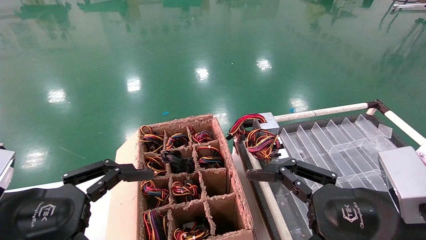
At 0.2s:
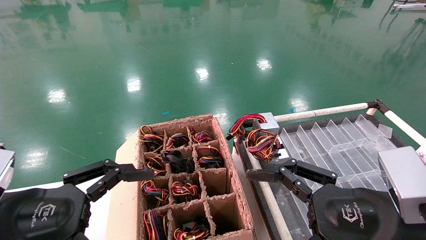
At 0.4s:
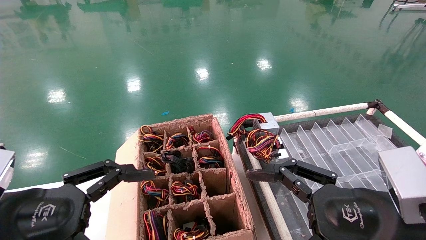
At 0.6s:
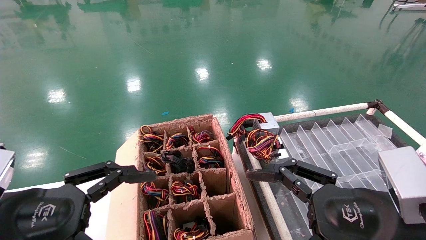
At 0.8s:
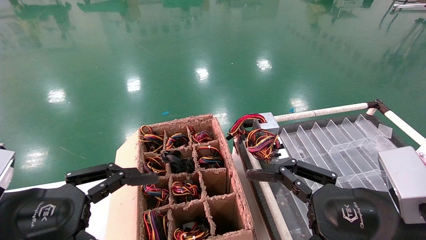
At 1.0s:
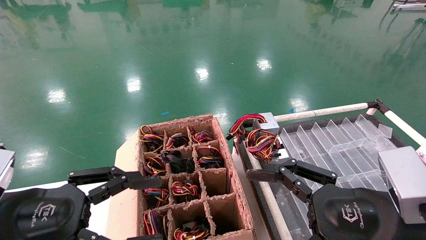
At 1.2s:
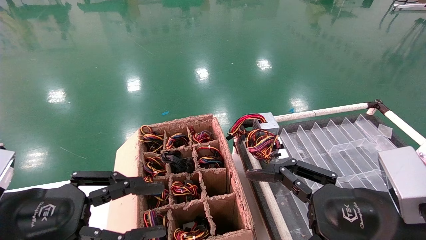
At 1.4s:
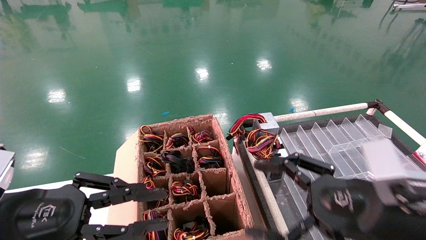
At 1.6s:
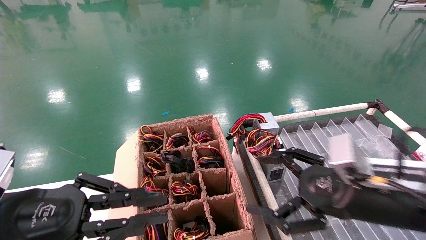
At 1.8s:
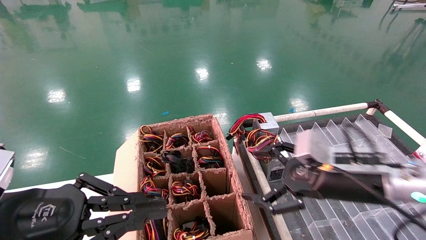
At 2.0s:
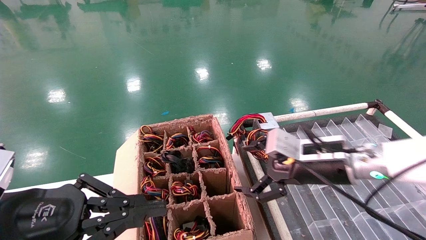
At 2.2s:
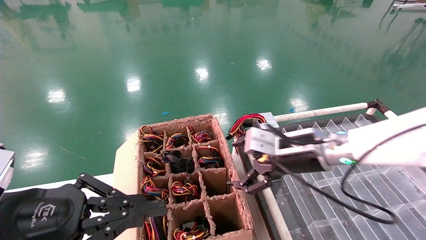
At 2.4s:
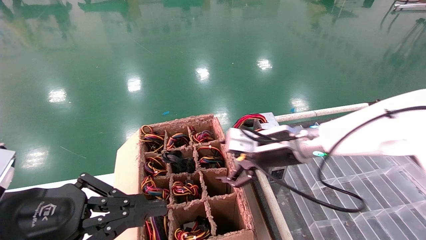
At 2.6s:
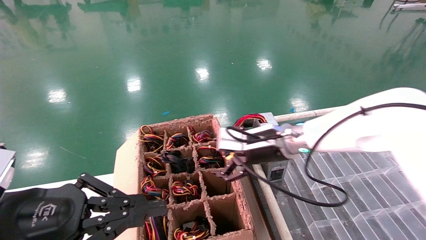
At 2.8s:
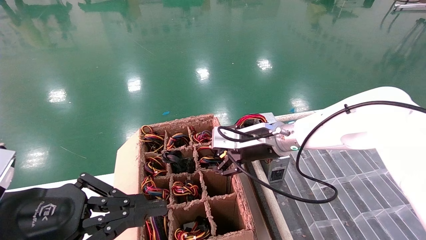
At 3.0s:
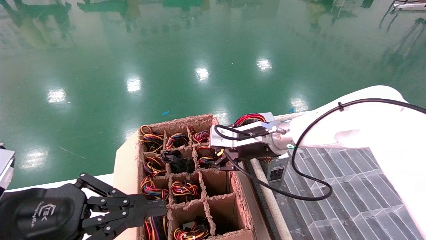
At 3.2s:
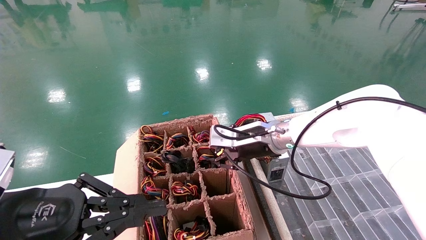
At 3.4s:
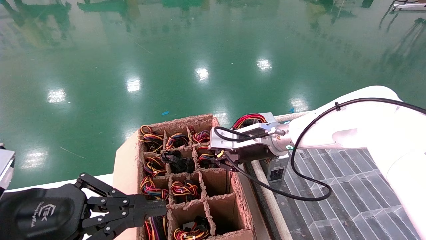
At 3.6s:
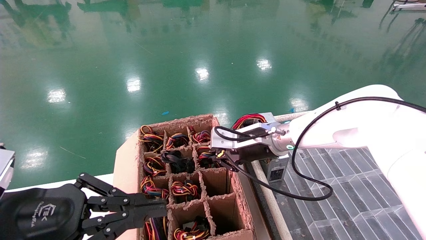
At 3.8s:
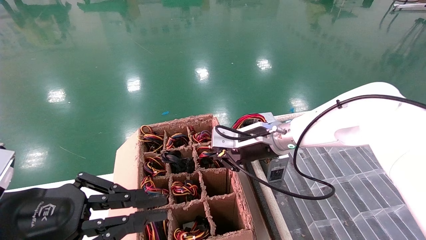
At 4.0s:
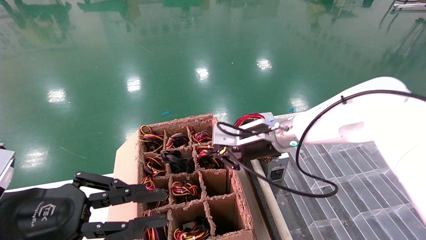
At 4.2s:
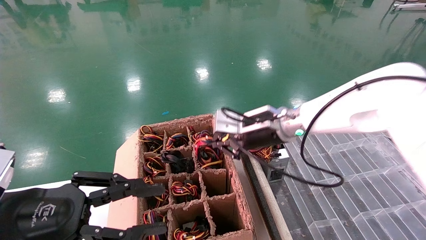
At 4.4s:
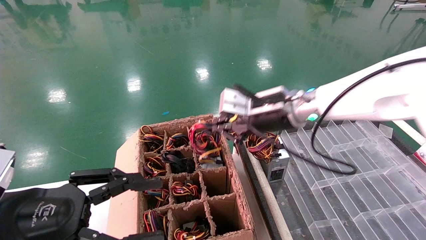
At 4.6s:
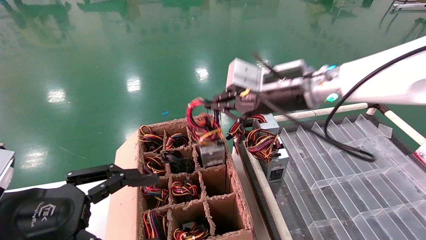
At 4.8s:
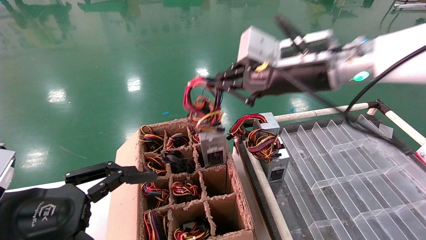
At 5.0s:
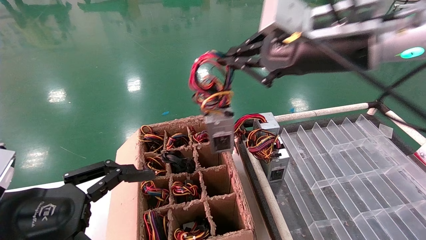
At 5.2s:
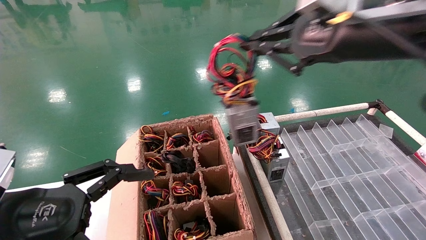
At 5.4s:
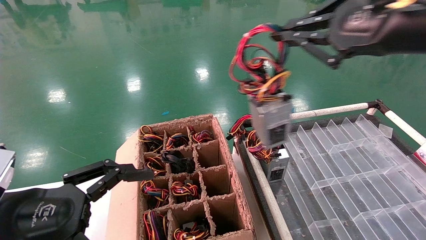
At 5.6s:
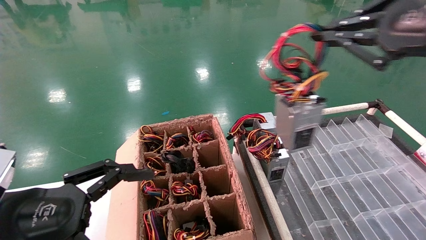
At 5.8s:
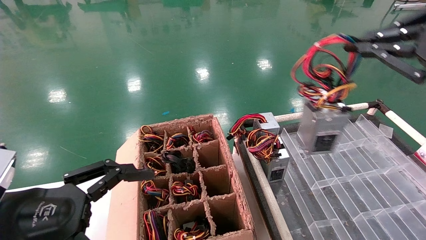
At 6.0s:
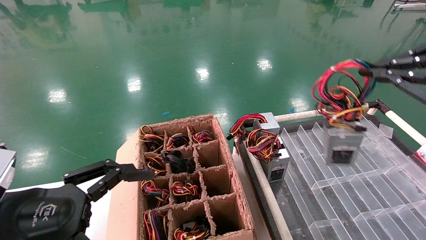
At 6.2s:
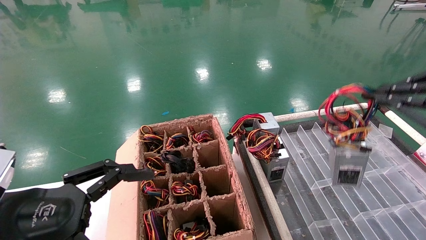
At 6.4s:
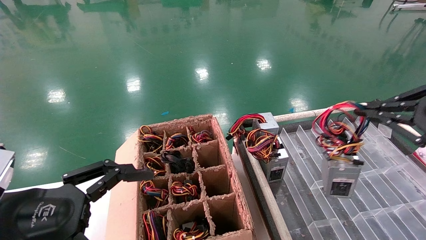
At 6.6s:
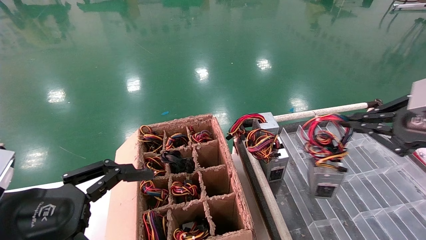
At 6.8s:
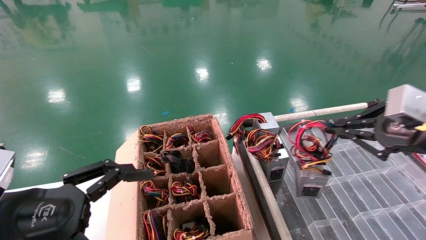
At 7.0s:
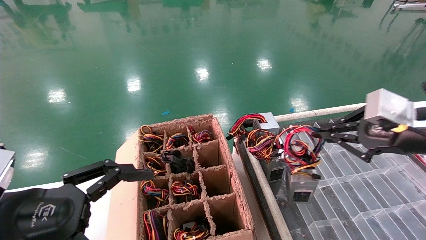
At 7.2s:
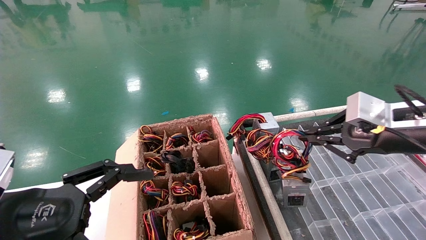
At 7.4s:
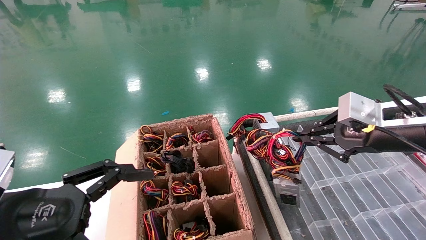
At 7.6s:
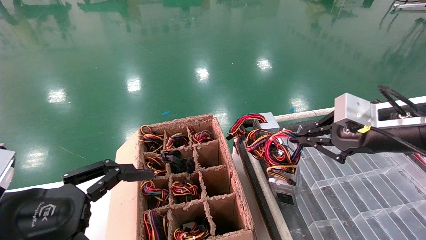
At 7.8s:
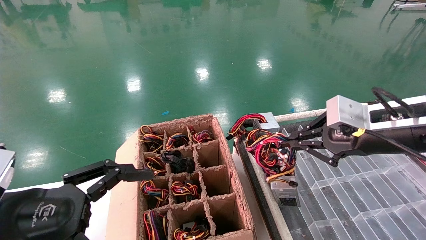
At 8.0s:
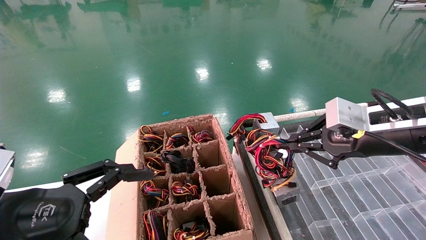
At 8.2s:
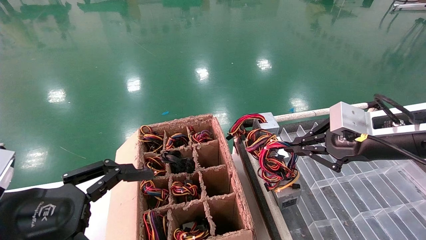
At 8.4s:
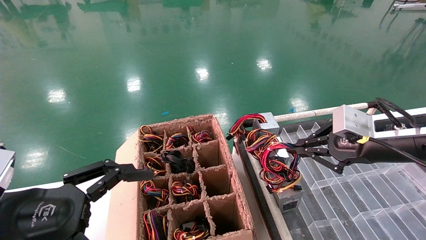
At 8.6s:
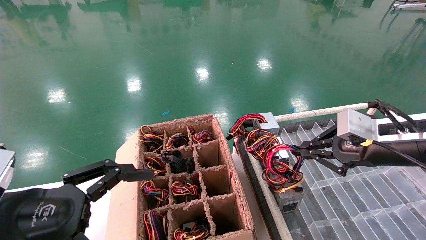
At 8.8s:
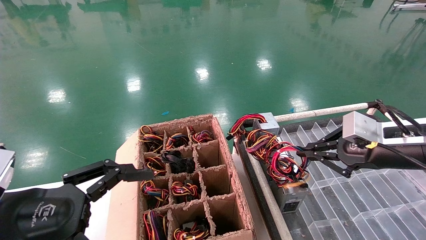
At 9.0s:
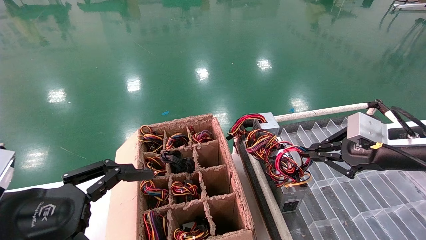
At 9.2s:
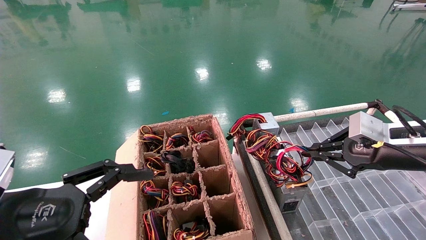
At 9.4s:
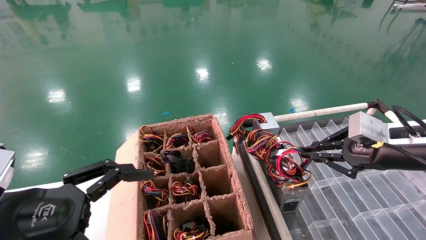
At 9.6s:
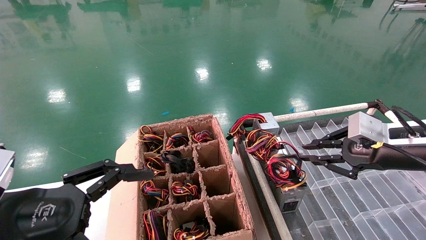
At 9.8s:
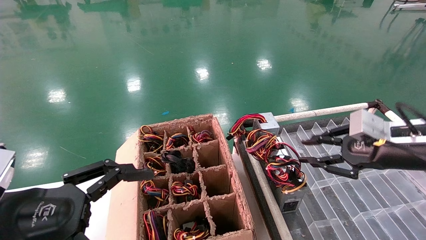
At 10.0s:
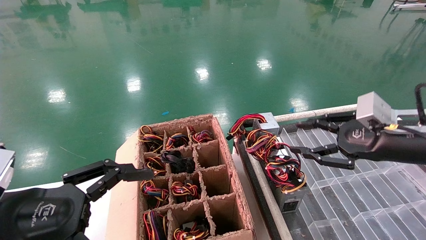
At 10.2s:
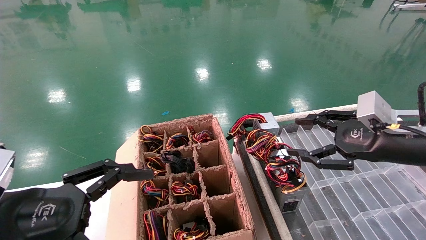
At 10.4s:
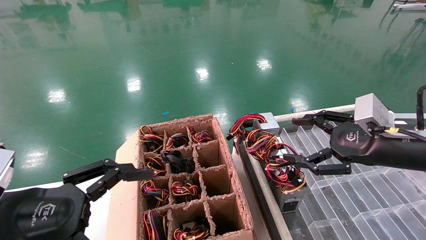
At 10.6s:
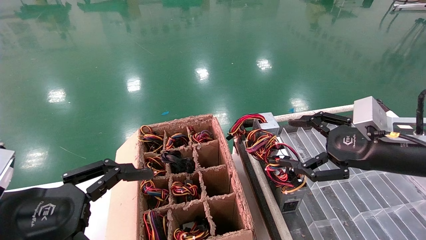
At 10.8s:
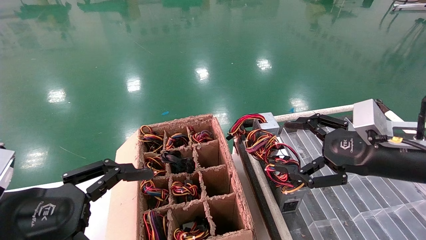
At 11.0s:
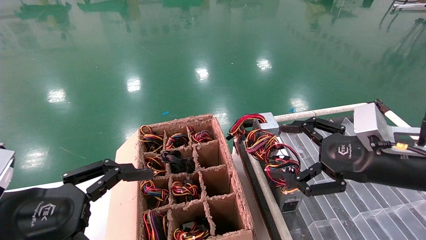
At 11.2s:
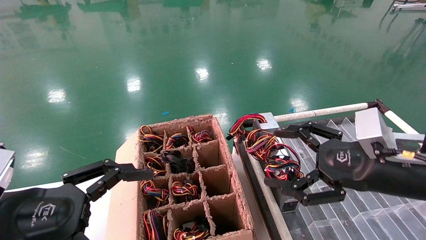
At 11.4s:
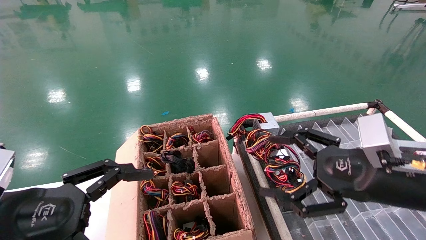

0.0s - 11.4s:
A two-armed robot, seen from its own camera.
Step, 1.2s - 3.8s: Grab and lift the power supply from the large box.
Step, 4.0s - 9.6s: Place the power supply on the operating table.
0.0s - 1.4s: The left gripper closes up.
1.4s - 2.8s: The right gripper travels forward and to the left by roughly 25 cm, while the left gripper closes its fingers.
2.8s - 4.2s: The right gripper closes.
4.2s - 5.6s: The right gripper goes approximately 30 cm backward, to the right and upward. The left gripper opens up.
5.6s - 7.2s: The right gripper shifts roughly 15 cm downward and forward.
7.2s - 8.6s: There are only small adjustments of the grippers.
8.6s - 10.0s: The right gripper opens up.
10.0s - 11.4s: The right gripper heads to the left and backward, covering some 10 cm, and opens.

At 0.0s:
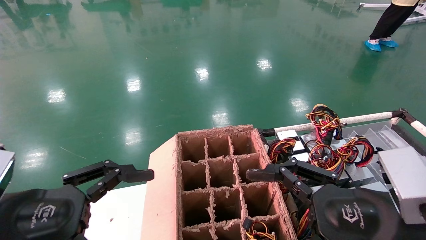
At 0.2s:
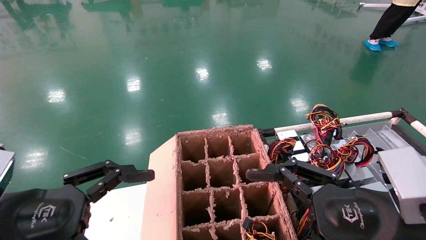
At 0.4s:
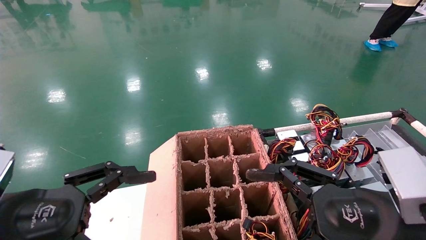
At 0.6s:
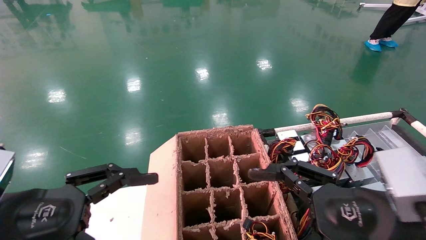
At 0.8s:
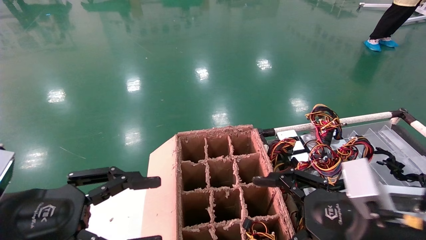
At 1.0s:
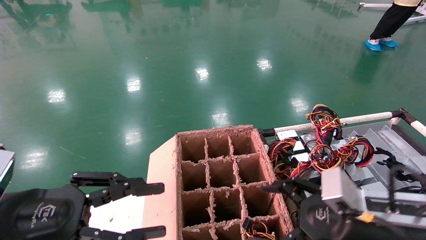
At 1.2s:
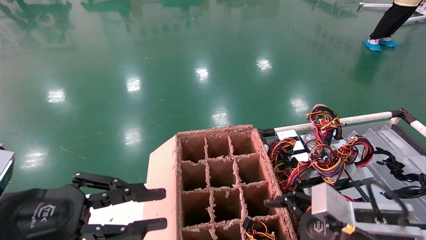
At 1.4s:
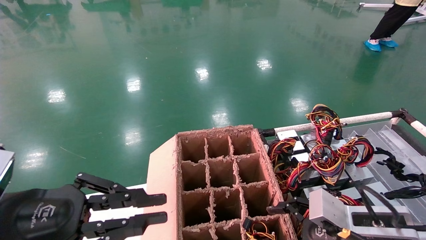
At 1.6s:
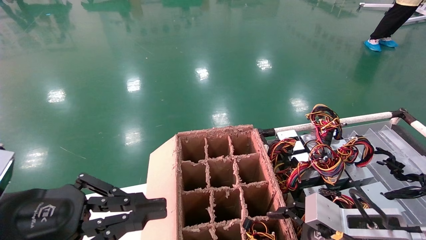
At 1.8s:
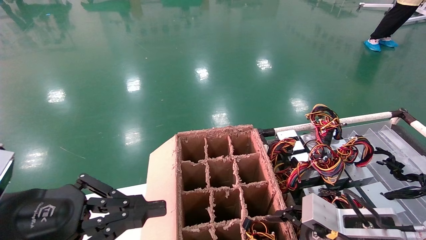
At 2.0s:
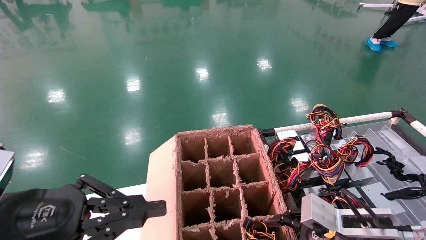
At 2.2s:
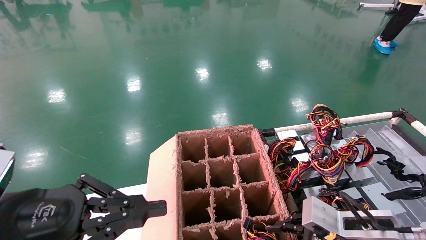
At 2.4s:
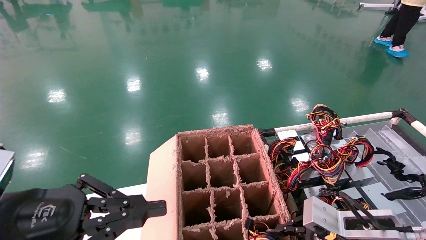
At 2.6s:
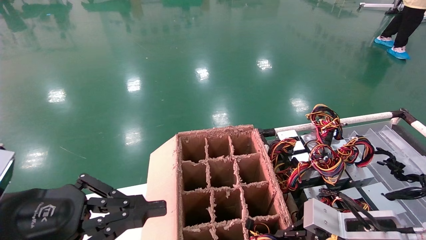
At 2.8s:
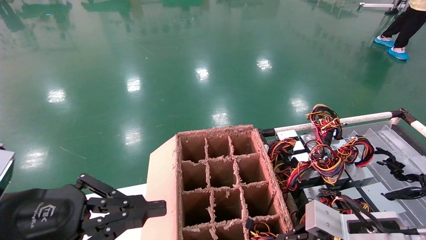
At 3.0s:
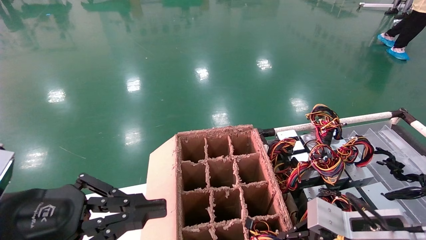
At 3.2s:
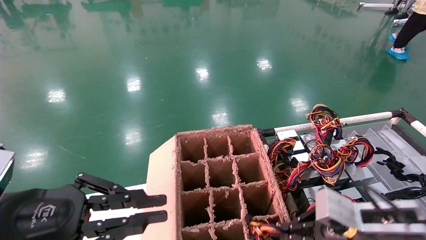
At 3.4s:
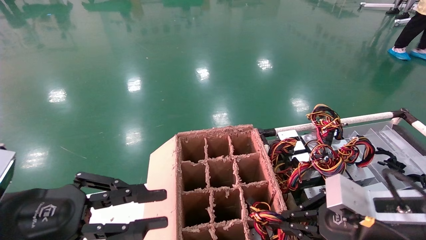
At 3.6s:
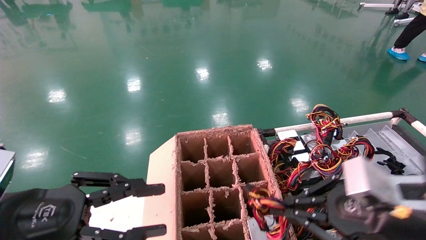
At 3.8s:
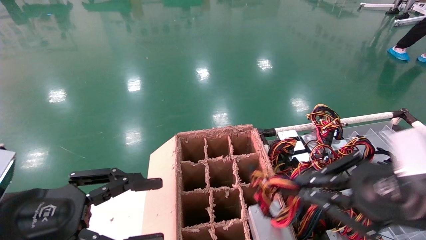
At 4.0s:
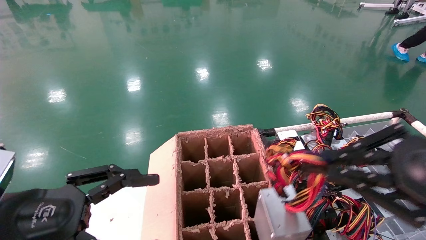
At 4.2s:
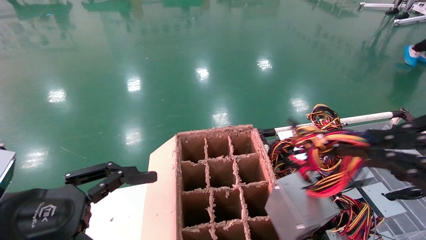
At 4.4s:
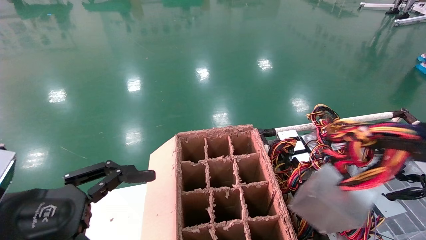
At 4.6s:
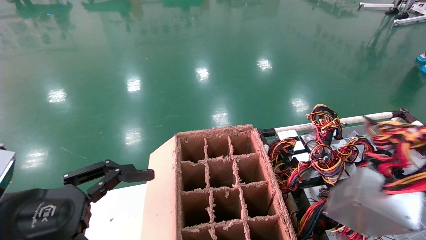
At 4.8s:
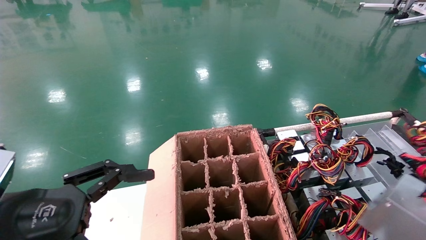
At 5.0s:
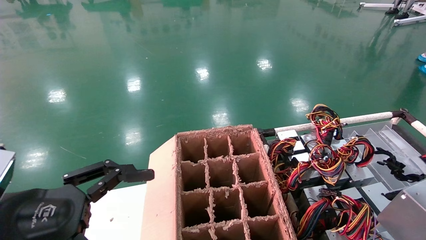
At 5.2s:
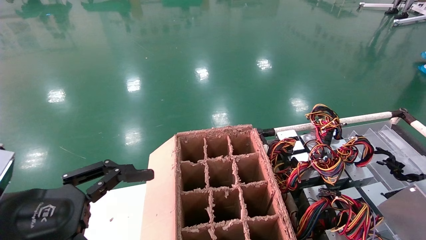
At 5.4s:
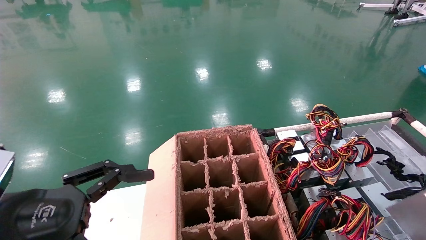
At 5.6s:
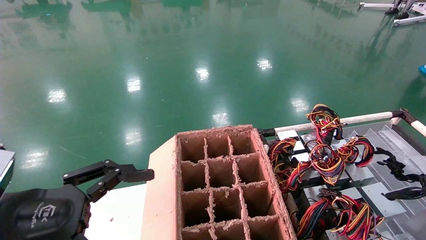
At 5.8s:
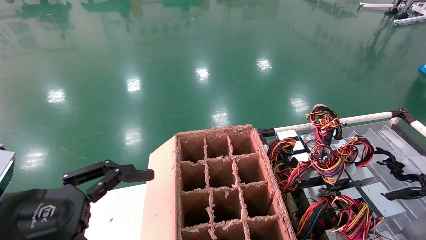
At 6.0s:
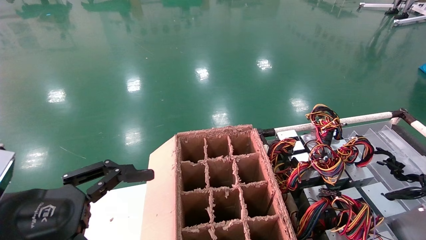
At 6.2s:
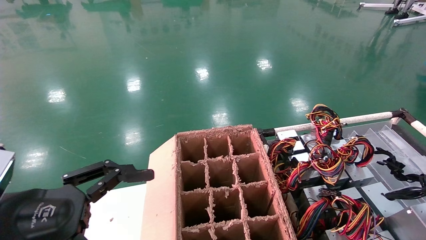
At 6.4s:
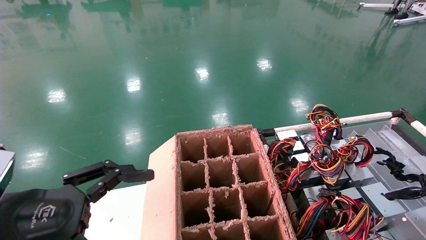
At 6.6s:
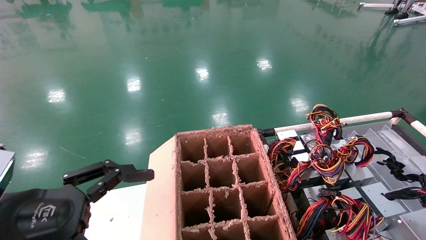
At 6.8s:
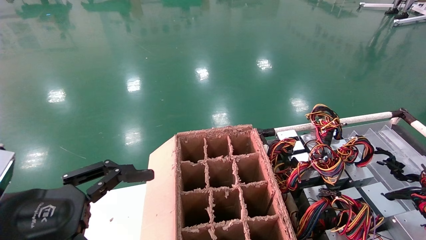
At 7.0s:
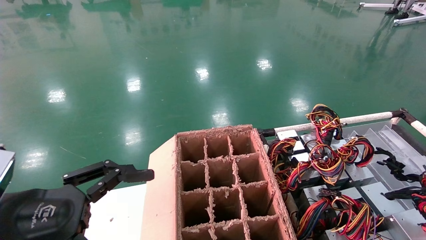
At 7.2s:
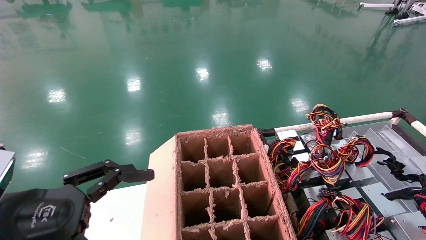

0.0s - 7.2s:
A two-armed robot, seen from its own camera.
Step, 0.8s - 2.6s: Grab and lift the power supply from the large box.
0.0s - 1.4s: The left gripper closes up. Meanwhile the right gripper shifts roughly 10 cm downward and forward.
1.4s - 2.8s: The right gripper closes its fingers.
2.8s - 4.4s: The right gripper goes roughly 25 cm upward, backward and to the right. Meanwhile the left gripper opens its fingers.
4.4s - 5.8s: The right gripper goes about 15 cm to the right and downward.
5.8s - 7.2s: The right gripper travels downward and forward by some 10 cm.
